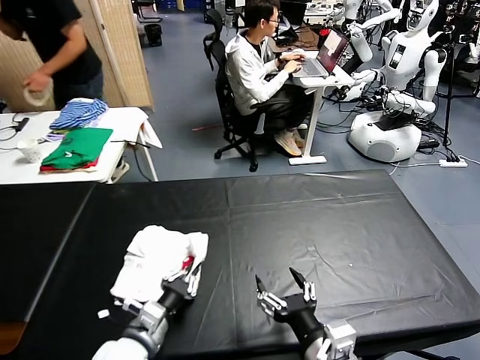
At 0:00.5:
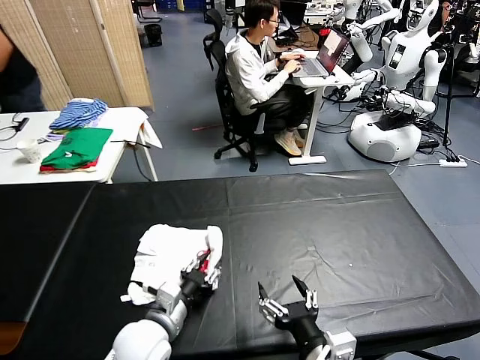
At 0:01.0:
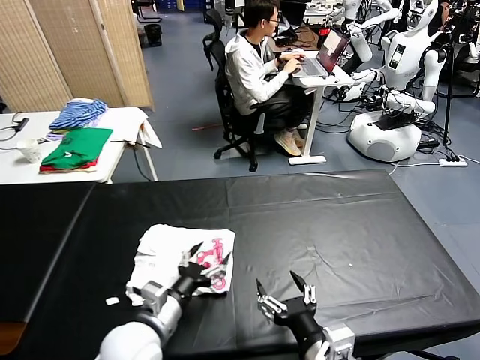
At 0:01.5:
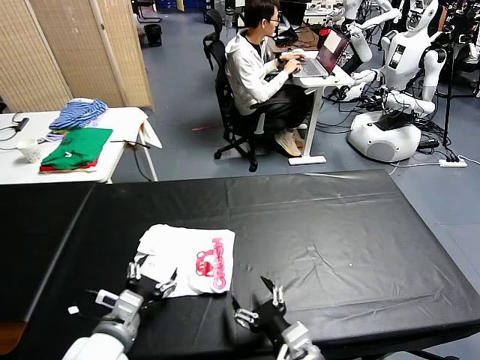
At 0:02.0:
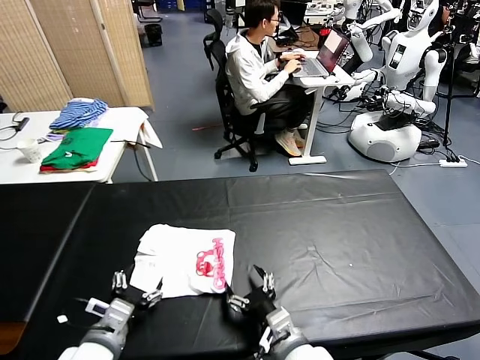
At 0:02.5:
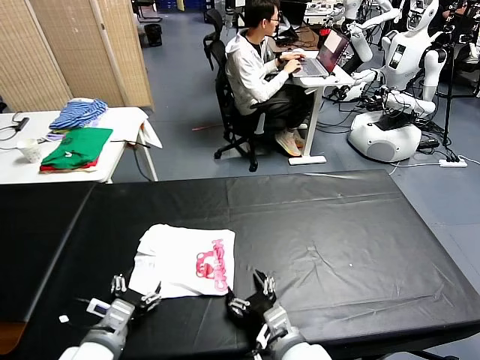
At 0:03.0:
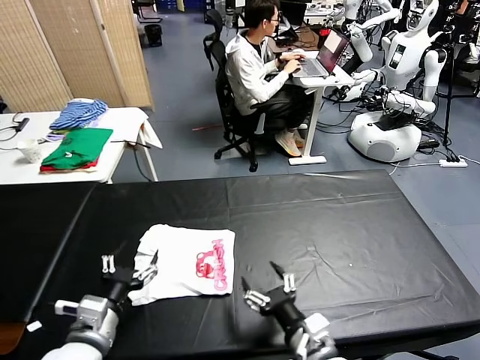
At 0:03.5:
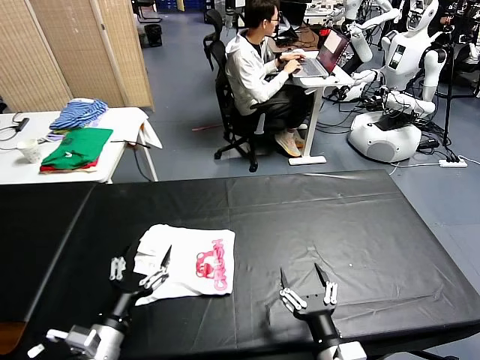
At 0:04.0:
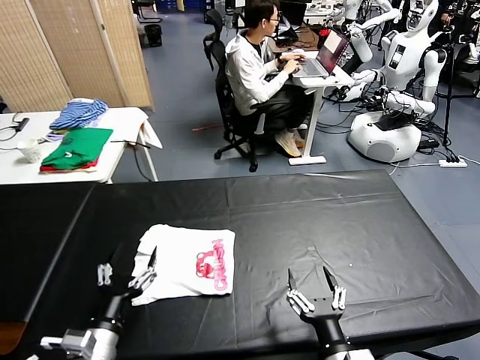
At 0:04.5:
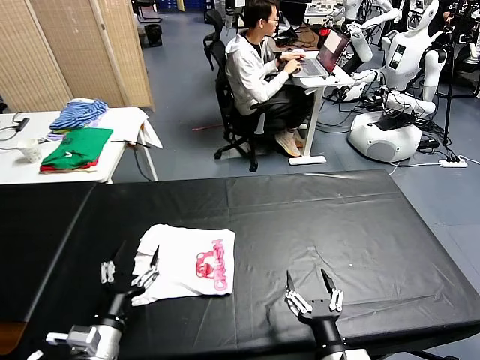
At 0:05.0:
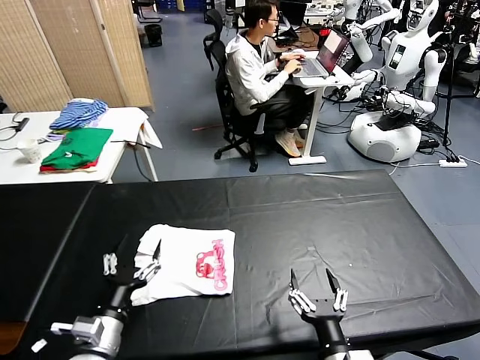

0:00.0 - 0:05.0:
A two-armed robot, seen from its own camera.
Task of the whole recording: fold and organize the clothes.
0:00.0 - 0:02.5: The left gripper changes place by roughly 5 cm, and opens its fingers. Meanwhile the right gripper heads downward, forward and to the left, covering approximately 10 cm.
0:02.5 - 0:05.0: The right gripper moves backward and to the right, approximately 10 cm.
